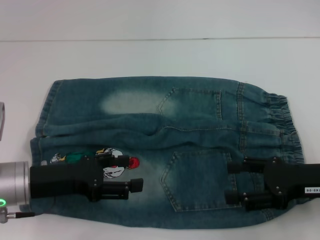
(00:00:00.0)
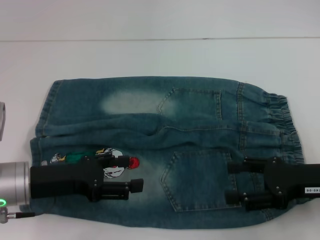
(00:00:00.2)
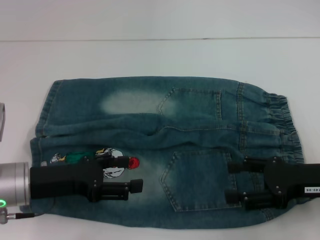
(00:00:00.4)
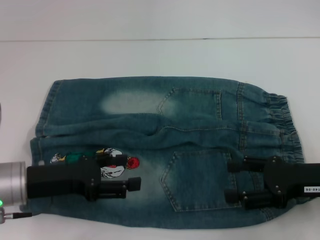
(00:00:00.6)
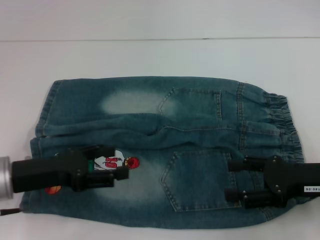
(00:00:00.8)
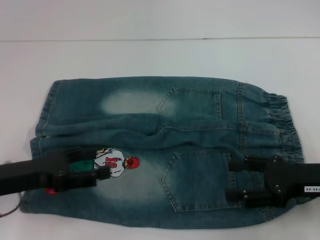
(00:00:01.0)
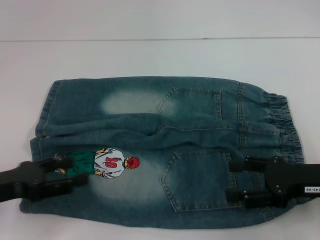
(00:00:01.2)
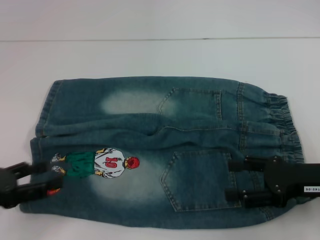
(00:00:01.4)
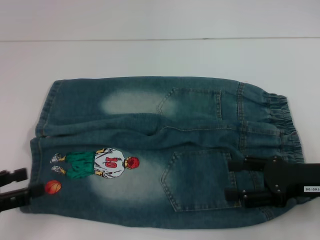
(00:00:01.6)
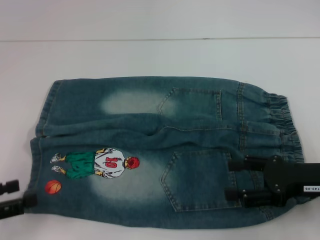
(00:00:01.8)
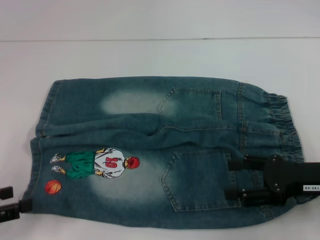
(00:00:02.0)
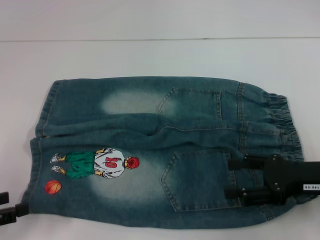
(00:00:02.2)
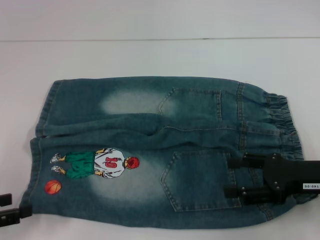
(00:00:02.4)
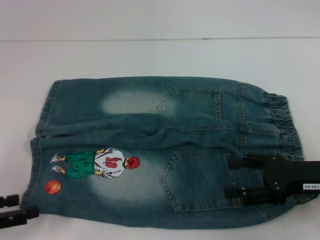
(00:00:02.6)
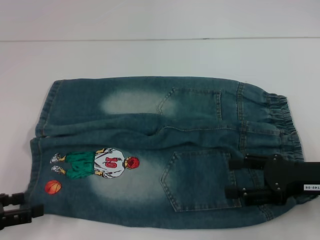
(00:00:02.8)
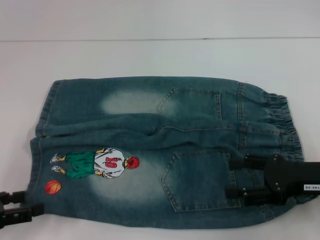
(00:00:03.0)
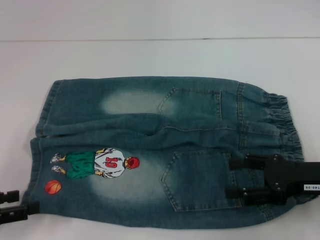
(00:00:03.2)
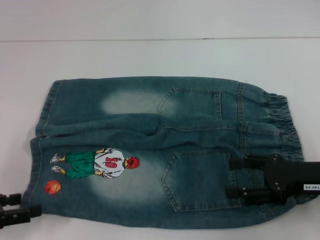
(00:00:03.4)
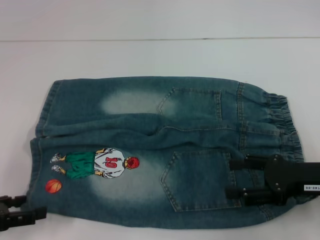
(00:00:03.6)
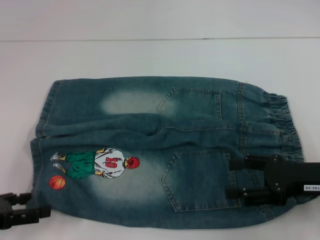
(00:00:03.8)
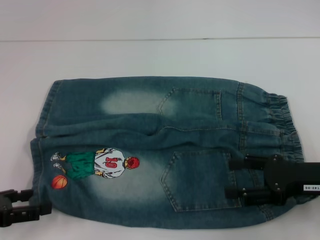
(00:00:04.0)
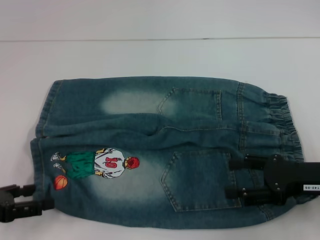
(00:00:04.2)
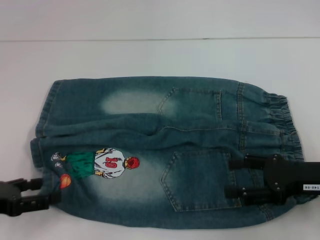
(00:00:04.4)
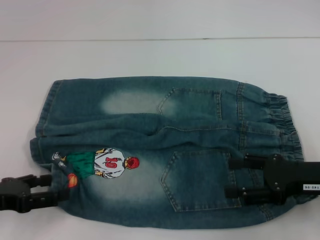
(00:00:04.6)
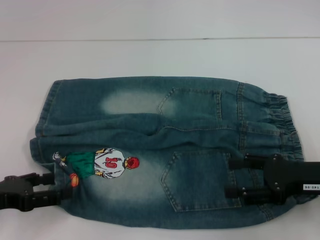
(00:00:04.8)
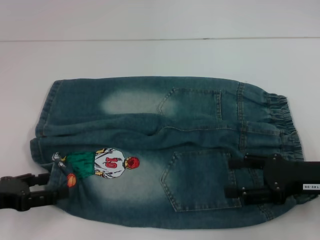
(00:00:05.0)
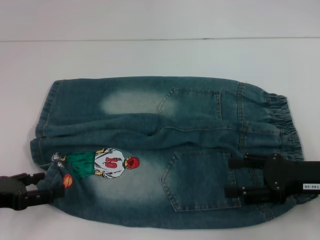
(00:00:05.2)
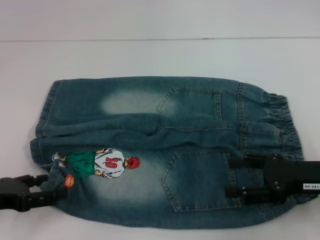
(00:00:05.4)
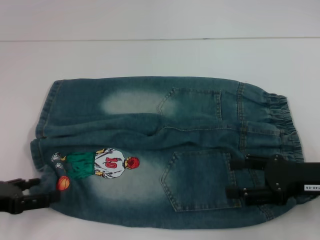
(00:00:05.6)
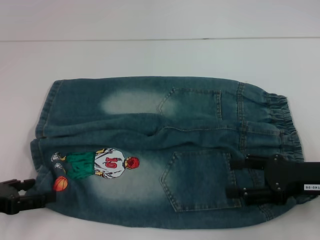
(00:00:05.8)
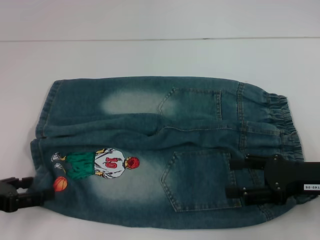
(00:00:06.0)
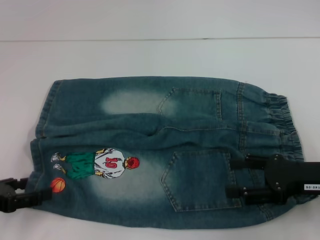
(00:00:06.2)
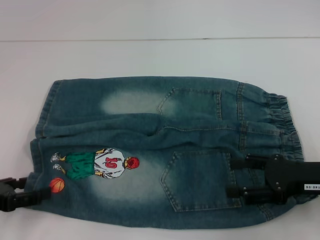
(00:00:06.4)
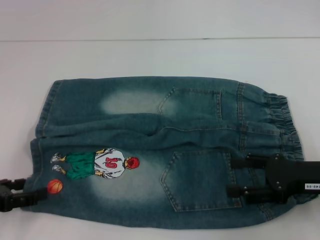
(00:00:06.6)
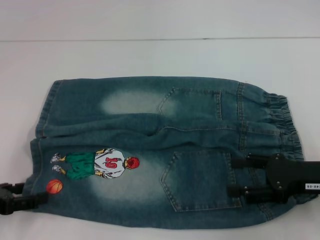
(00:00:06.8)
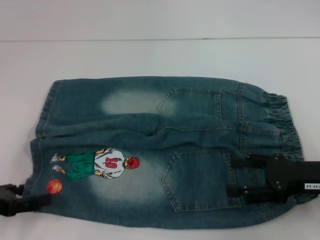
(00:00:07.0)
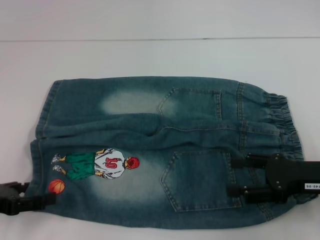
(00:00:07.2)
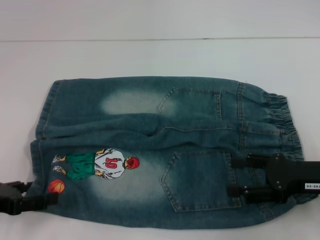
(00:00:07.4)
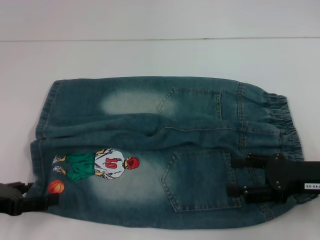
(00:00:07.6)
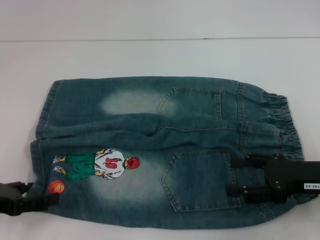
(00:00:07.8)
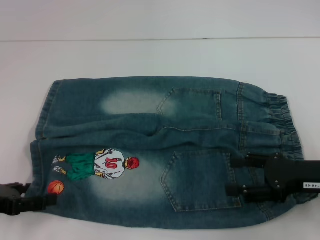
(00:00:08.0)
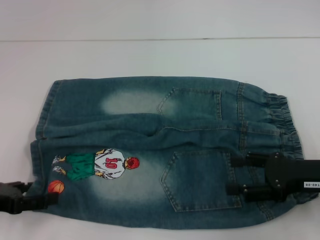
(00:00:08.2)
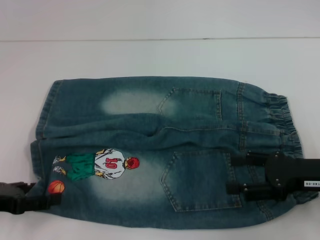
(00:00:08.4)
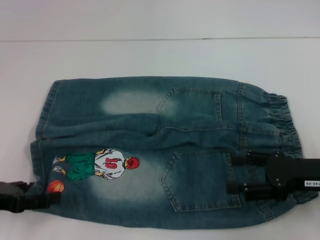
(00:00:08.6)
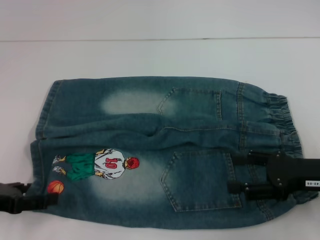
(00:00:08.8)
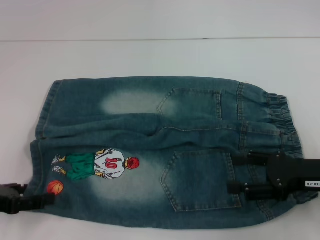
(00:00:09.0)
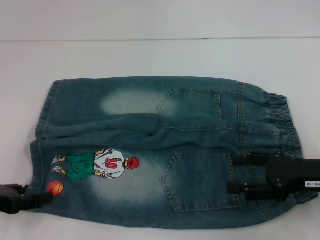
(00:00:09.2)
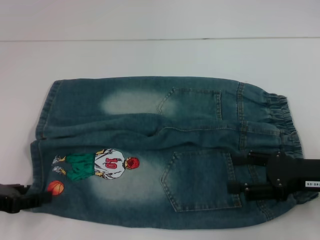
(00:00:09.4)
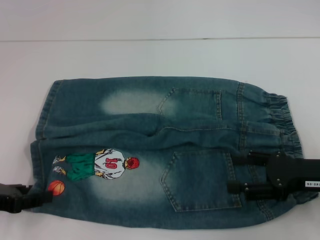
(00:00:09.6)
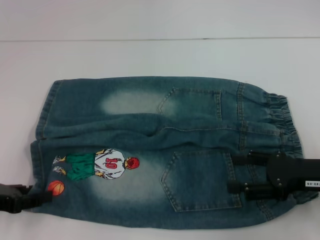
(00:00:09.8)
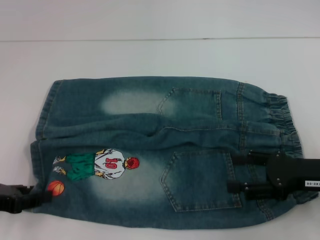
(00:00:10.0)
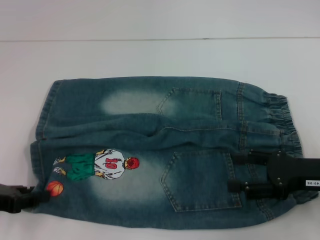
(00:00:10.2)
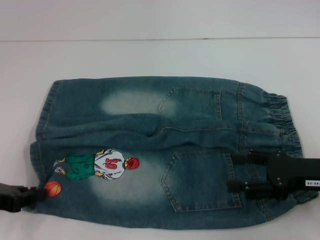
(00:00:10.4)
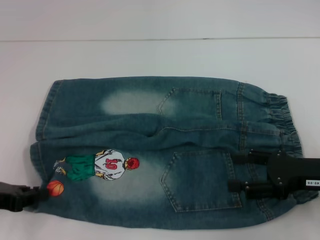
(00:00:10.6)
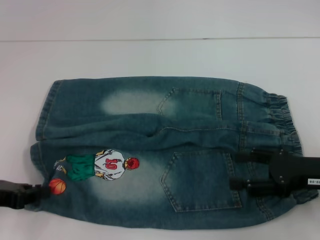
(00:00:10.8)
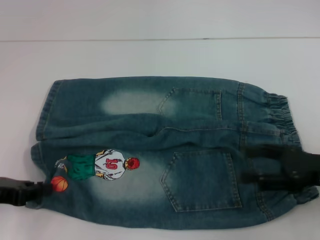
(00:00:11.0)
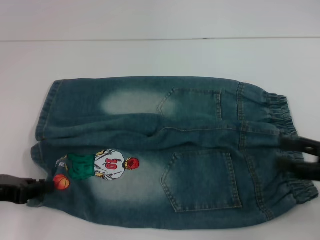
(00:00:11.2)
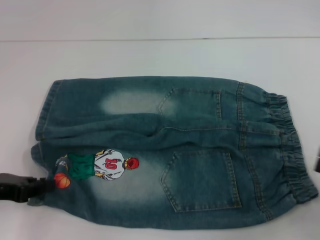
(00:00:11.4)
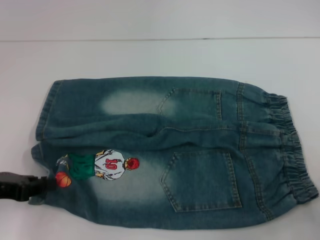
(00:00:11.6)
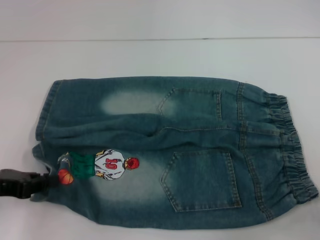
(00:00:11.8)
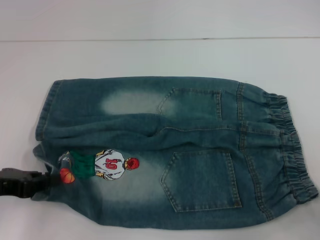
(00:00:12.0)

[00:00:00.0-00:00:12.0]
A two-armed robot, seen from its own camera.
Step, 00:00:00.0 to 00:00:10.6: Grab the lower left pant leg with your left hand.
00:00:00.0 to 00:00:01.6: The left gripper travels to the left and backward by roughly 15 cm.
00:00:01.6 to 00:00:07.6: The grippers stay close to where they were, moving slightly.
00:00:07.6 to 00:00:09.0: The two grippers keep their place.
00:00:09.0 to 00:00:10.4: The left gripper closes up.
00:00:10.4 to 00:00:12.0: The right gripper moves to the right and backward, about 15 cm.

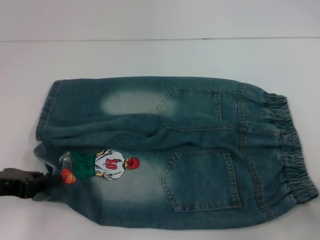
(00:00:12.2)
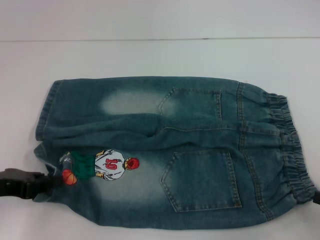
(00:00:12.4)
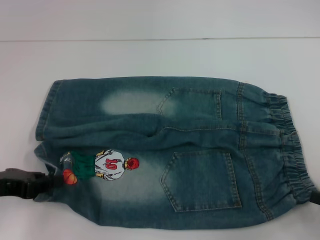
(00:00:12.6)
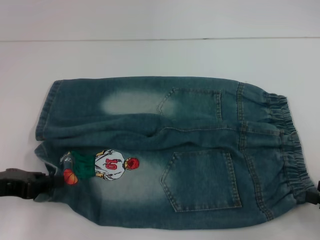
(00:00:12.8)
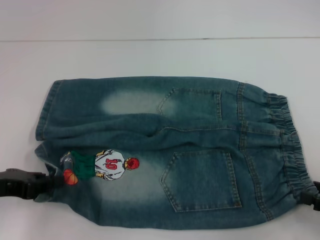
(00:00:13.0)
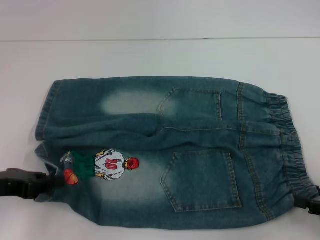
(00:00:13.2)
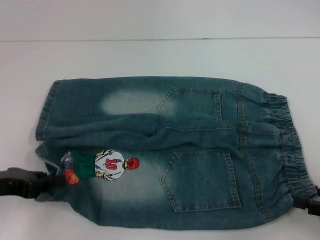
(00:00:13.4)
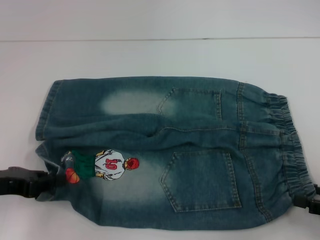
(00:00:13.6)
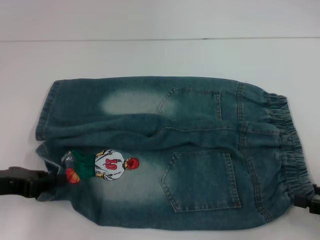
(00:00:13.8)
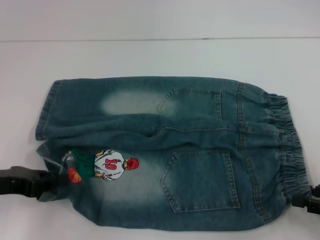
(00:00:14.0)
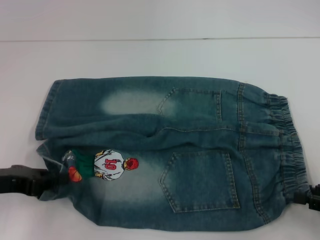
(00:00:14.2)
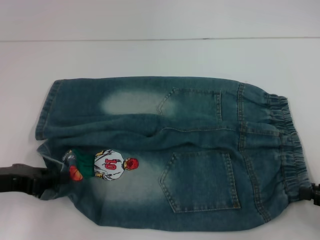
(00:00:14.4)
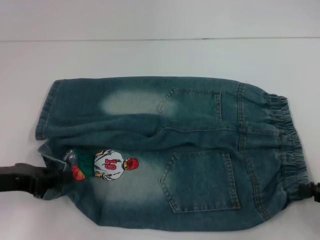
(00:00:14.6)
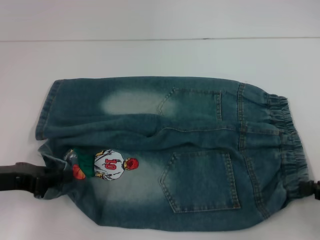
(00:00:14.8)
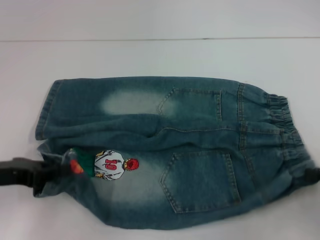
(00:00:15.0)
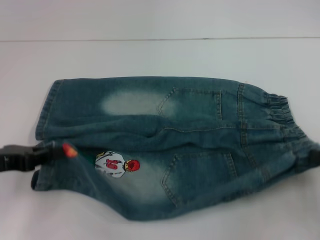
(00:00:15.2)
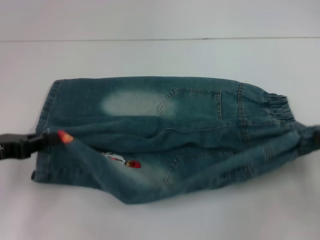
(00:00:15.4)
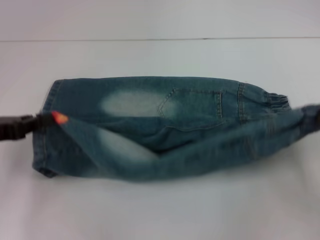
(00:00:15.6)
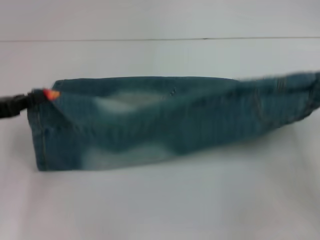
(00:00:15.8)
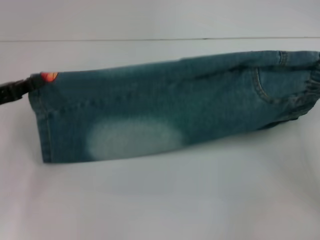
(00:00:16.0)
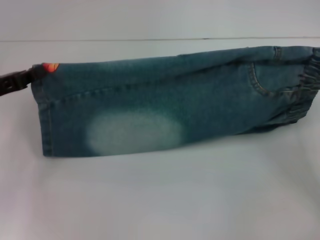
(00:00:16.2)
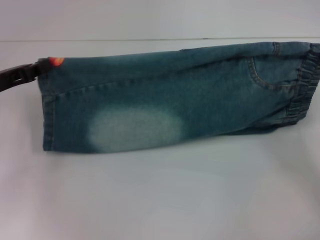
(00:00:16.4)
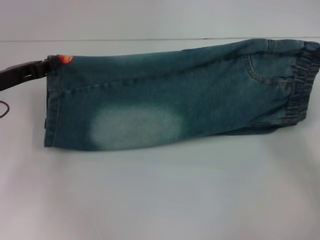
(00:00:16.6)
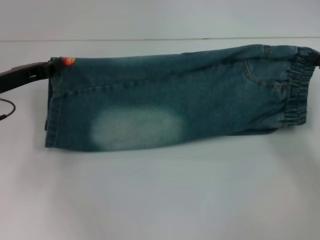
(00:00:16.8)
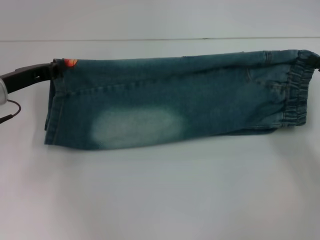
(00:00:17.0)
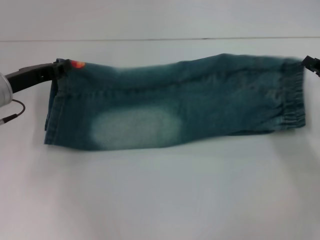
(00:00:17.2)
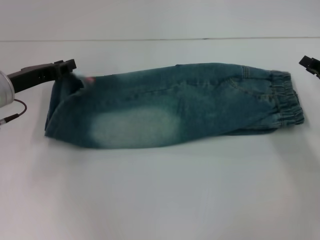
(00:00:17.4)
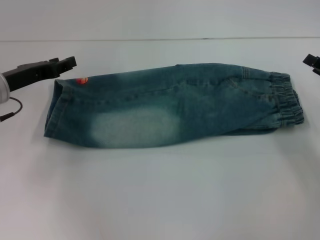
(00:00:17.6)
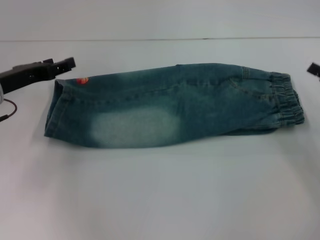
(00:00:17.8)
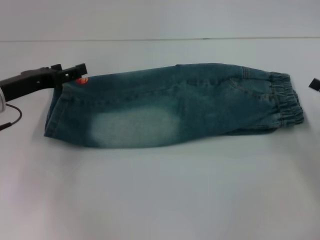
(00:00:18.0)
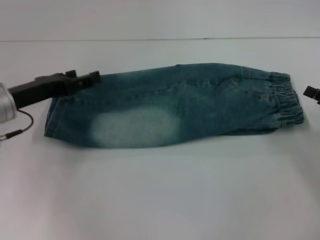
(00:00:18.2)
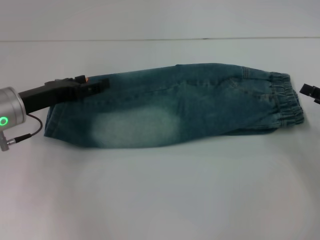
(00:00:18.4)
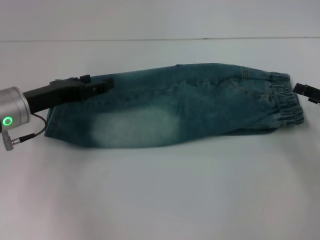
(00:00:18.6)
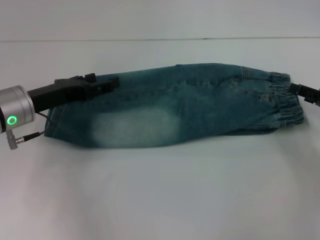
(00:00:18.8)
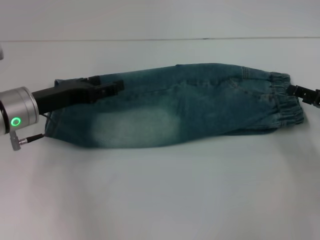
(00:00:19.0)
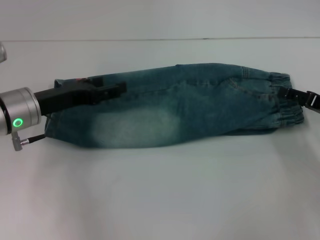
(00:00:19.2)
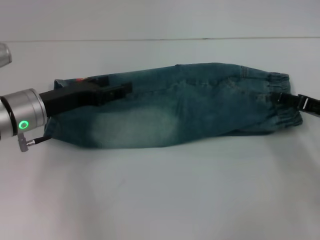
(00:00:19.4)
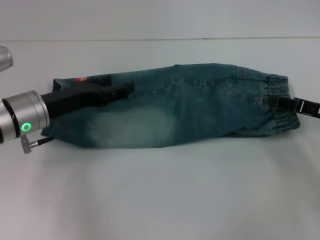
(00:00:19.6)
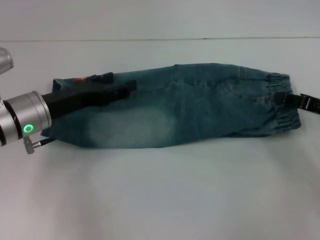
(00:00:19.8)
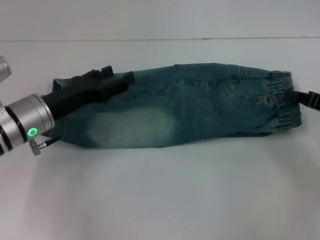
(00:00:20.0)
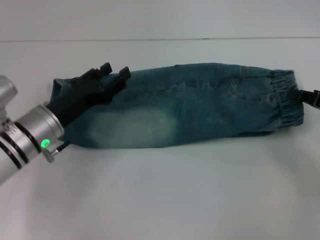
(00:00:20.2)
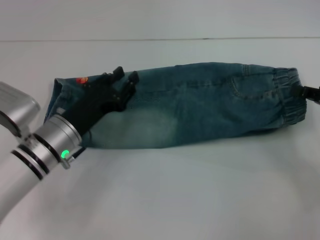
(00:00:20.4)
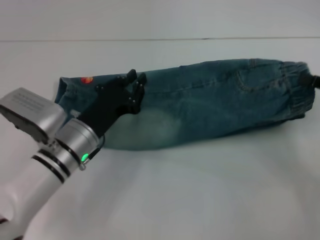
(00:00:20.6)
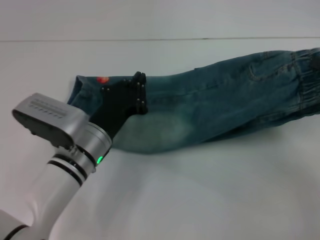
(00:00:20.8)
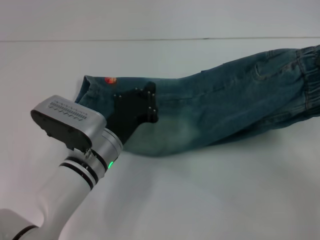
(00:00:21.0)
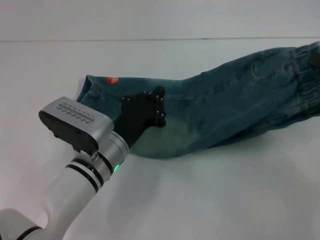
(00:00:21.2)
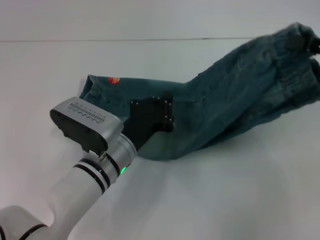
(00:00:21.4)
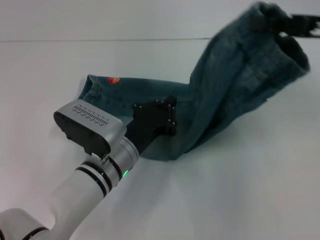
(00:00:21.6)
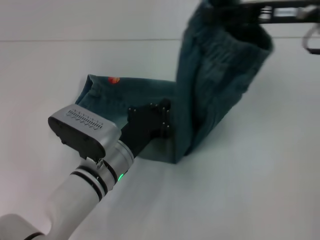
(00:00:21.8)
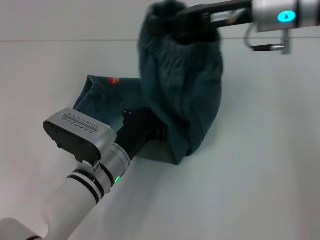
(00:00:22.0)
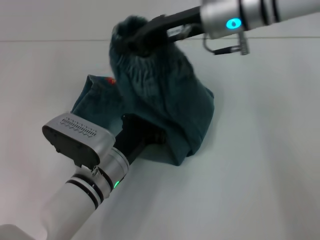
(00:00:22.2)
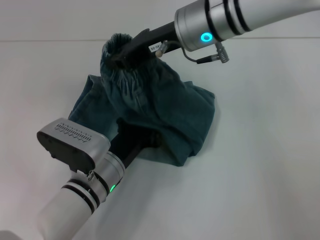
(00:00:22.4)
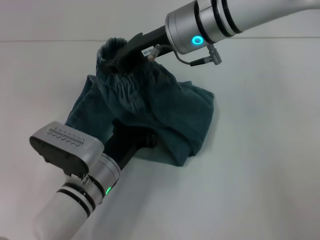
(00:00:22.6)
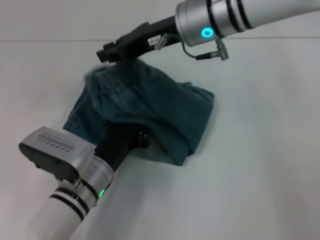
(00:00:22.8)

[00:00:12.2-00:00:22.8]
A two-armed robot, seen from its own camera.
Step, 00:00:12.2 to 00:00:14.6: Hold the lower right waistband with your right hand.
Step, 00:00:14.8 to 00:00:17.2: Fold upward with your right hand.
Step, 00:00:17.6 to 00:00:20.2: Grab the waistband with your right hand.
Step, 00:00:20.4 to 00:00:22.6: Press the middle of the pants with your left hand.
00:00:12.2 to 00:00:13.8: The grippers move only a little.
00:00:13.8 to 00:00:15.2: The right gripper closes up.
00:00:15.2 to 00:00:16.8: The two grippers go about 10 cm forward.
00:00:16.8 to 00:00:18.2: The left gripper opens up. The right gripper opens its fingers.
00:00:18.2 to 00:00:19.8: The right gripper moves approximately 5 cm.
00:00:19.8 to 00:00:21.2: The right gripper heads upward, covering some 10 cm, and closes. Meanwhile the left gripper heads to the right and downward, covering about 15 cm, and closes up.
00:00:21.2 to 00:00:22.8: The right gripper heads to the left and forward, covering some 30 cm.
